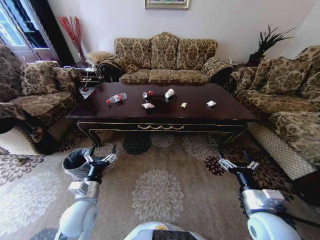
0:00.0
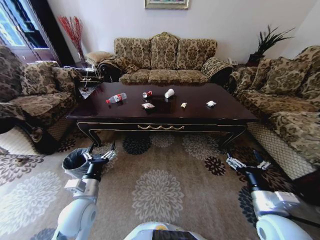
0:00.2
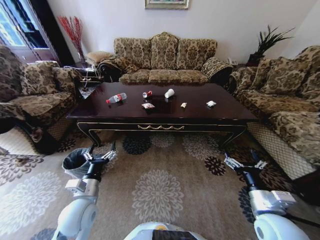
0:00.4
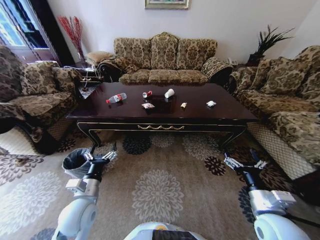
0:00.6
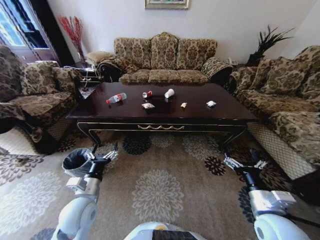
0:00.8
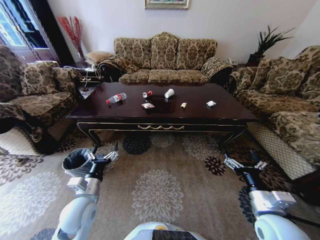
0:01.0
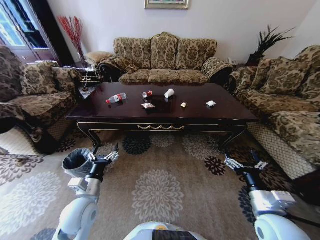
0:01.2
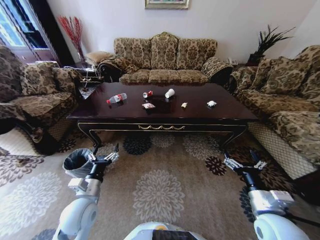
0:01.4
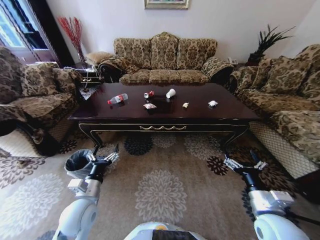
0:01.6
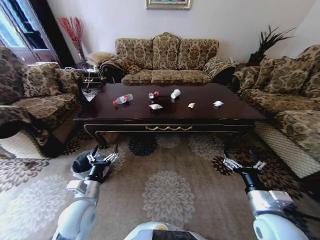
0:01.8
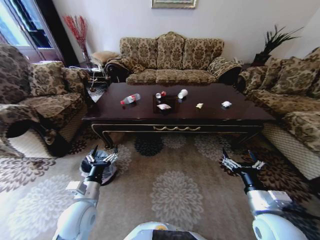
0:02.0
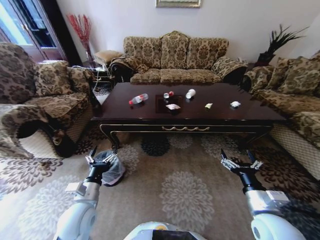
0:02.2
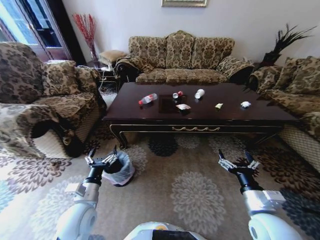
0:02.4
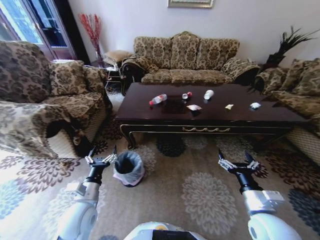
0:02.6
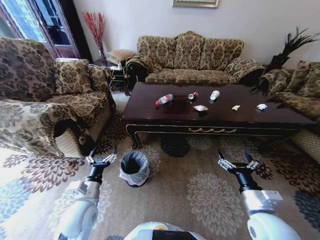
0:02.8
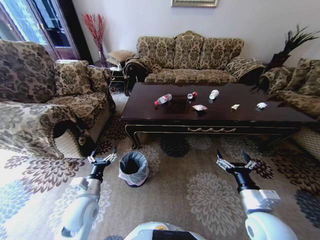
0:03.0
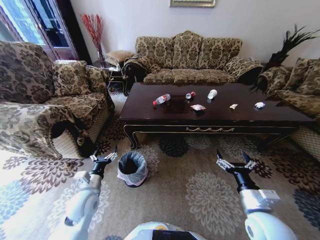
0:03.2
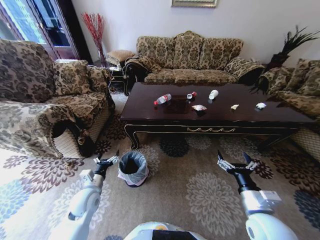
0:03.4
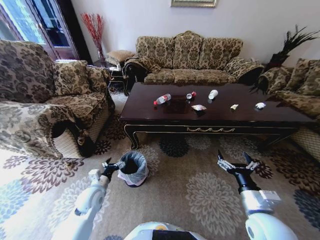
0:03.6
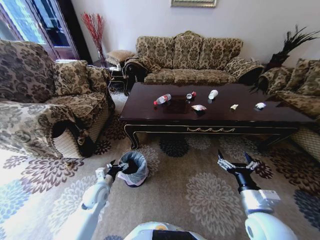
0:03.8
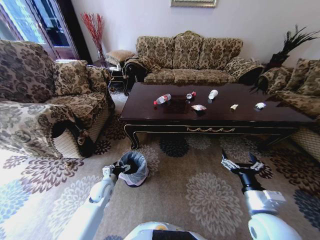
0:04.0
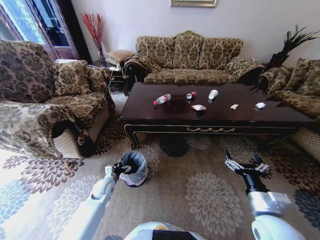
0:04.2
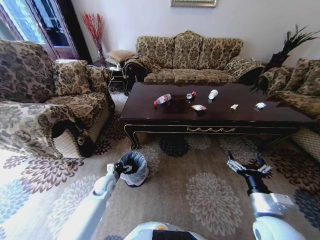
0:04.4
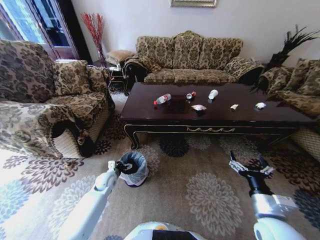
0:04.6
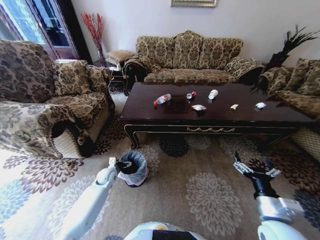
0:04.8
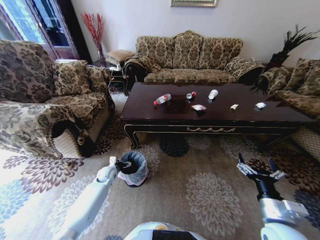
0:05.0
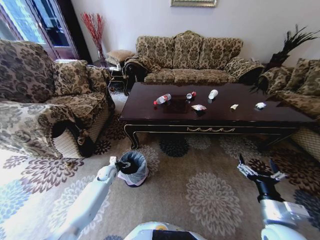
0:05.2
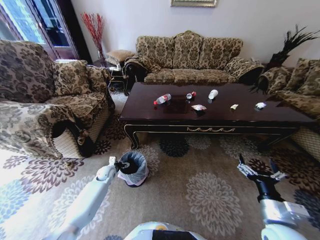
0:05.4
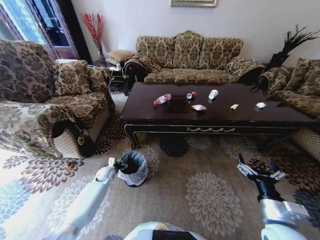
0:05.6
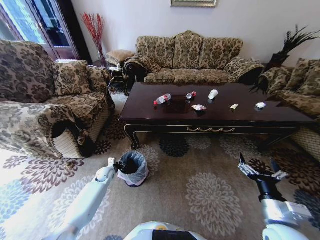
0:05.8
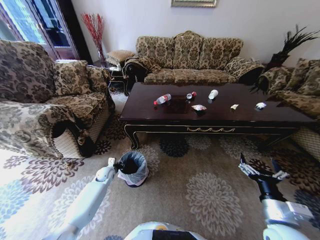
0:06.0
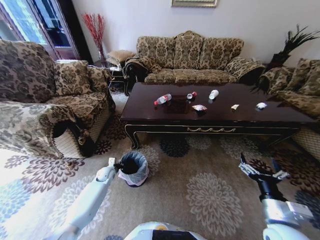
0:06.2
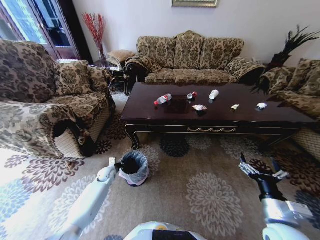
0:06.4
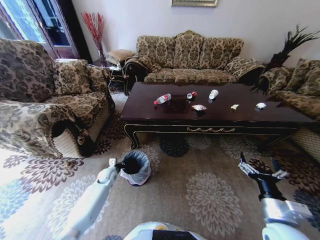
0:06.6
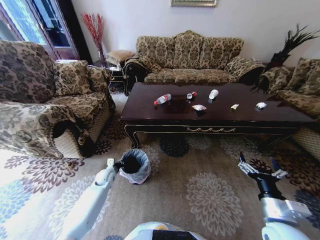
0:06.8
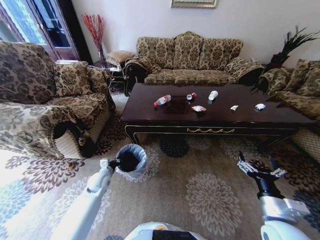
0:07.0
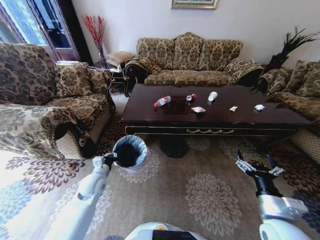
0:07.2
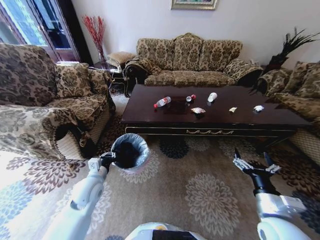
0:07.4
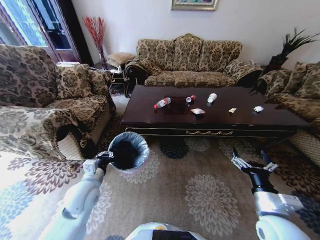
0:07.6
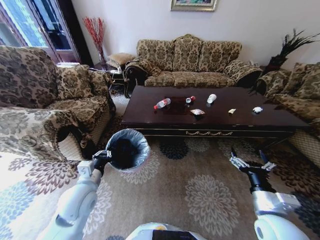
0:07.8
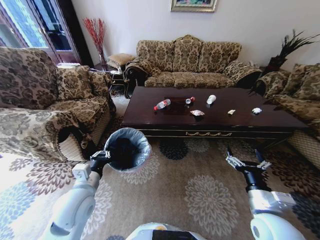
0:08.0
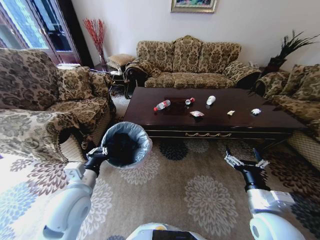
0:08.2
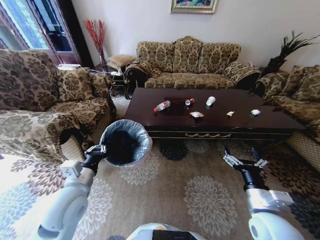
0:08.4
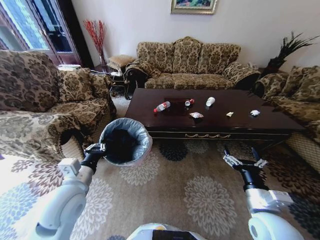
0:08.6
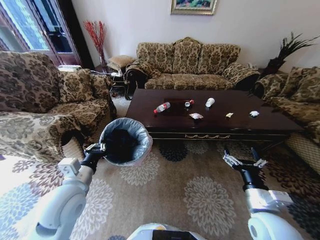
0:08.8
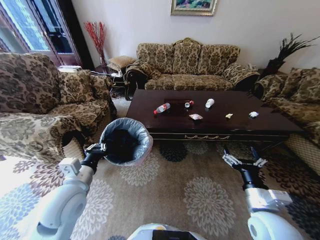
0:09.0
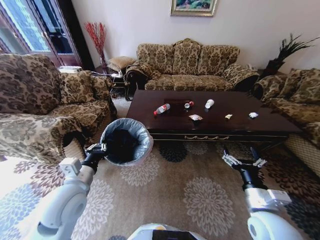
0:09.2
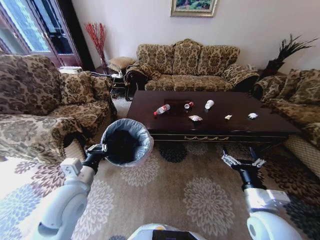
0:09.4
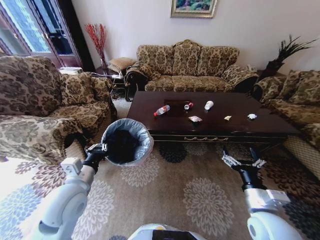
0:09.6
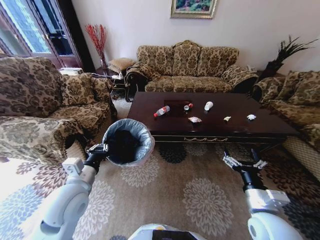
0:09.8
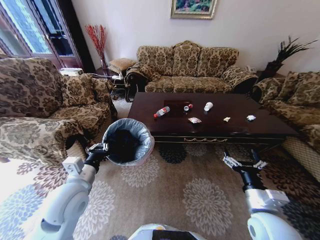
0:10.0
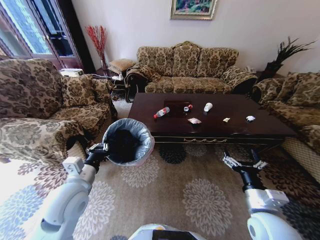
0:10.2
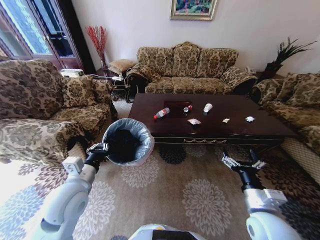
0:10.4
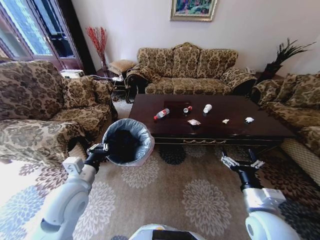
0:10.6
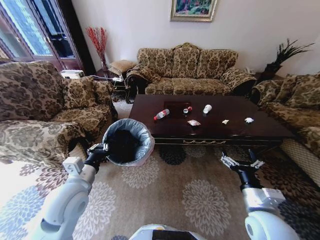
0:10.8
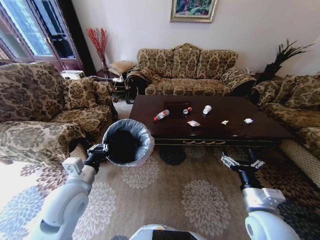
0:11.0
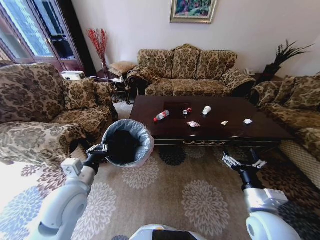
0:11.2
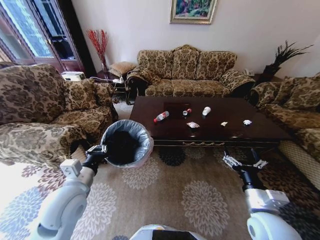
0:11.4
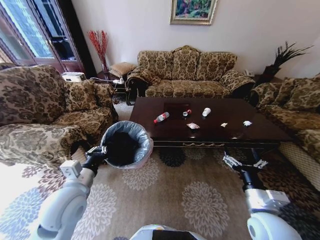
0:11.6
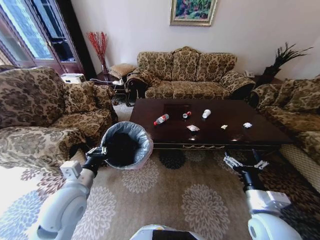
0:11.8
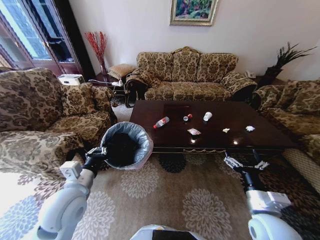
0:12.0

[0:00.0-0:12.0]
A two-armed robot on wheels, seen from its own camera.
Task of the whole recording: Move to the front of the table and place the trash on the table into the trash bin.
0:03.0 to 0:04.4: The left gripper travels forward and downward by some 20 cm.
0:04.4 to 0:06.0: The left gripper heads forward, covering roughly 5 cm, and closes its fingers.
0:06.0 to 0:07.6: The left gripper moves upward and backward, about 25 cm, and closes its fingers.
0:07.6 to 0:09.0: The left gripper moves upward, approximately 5 cm.

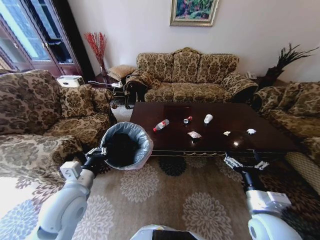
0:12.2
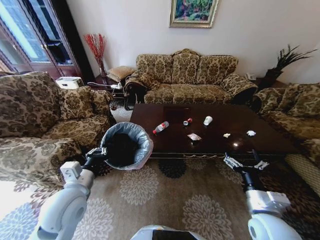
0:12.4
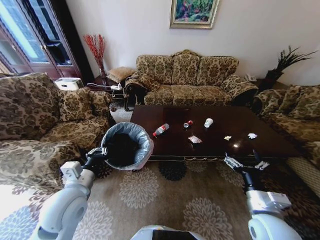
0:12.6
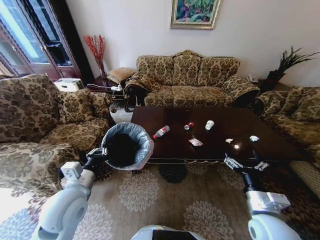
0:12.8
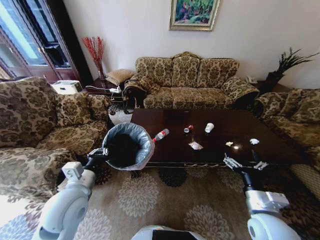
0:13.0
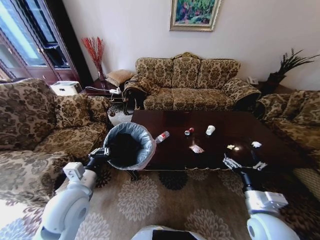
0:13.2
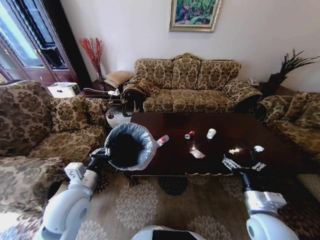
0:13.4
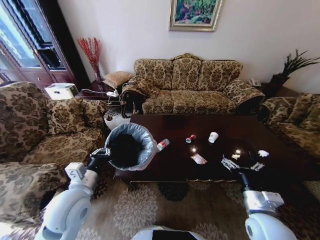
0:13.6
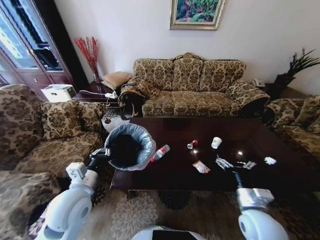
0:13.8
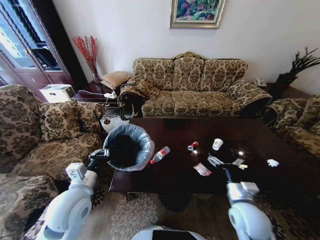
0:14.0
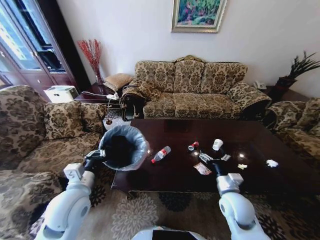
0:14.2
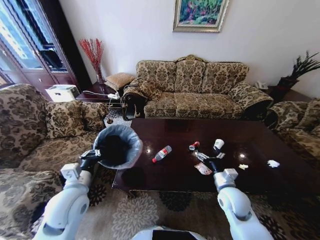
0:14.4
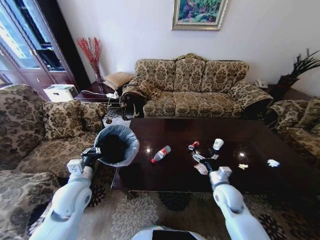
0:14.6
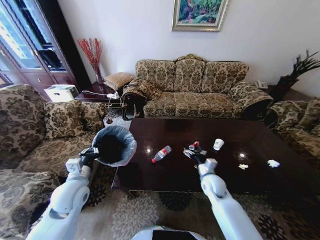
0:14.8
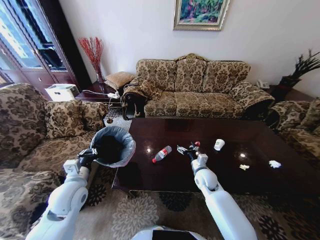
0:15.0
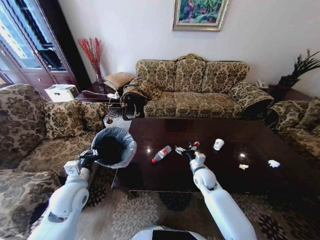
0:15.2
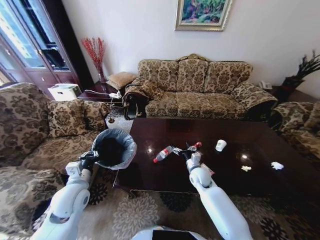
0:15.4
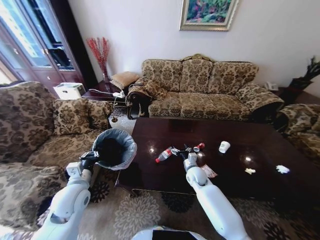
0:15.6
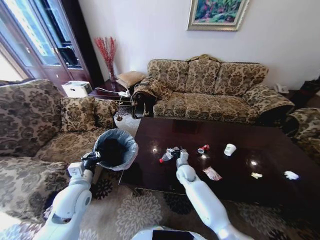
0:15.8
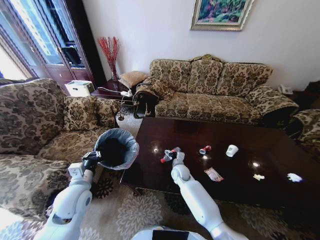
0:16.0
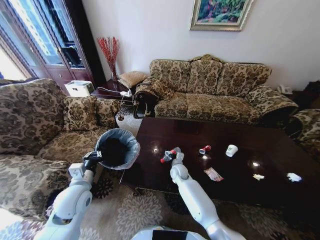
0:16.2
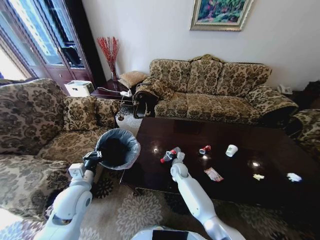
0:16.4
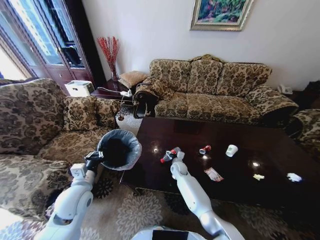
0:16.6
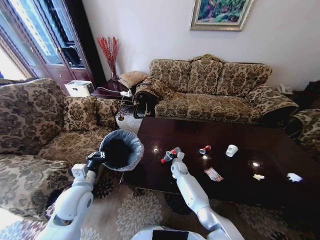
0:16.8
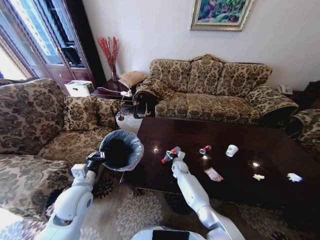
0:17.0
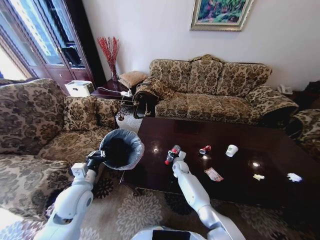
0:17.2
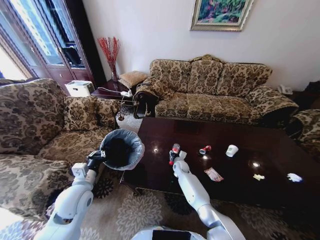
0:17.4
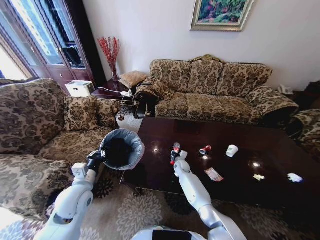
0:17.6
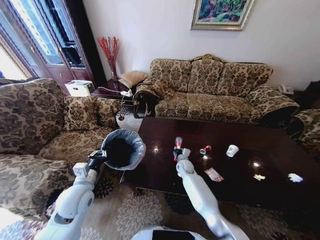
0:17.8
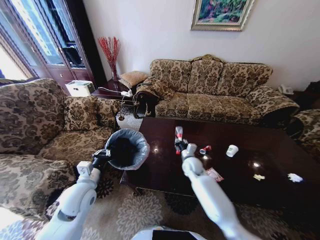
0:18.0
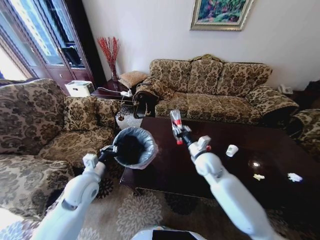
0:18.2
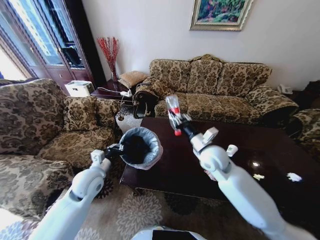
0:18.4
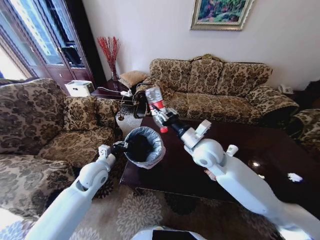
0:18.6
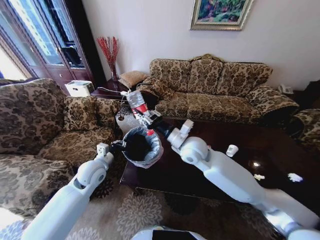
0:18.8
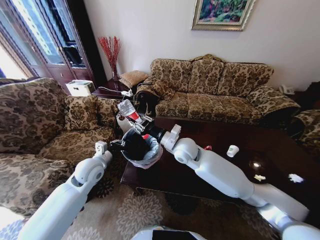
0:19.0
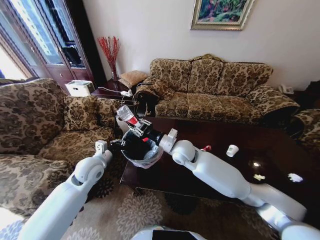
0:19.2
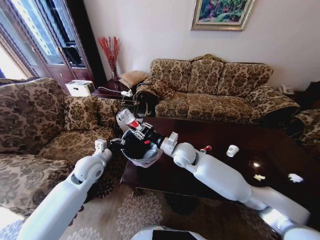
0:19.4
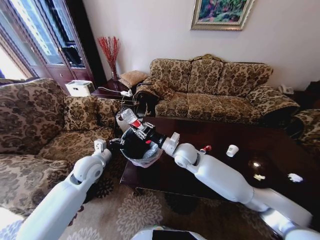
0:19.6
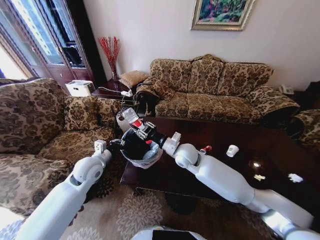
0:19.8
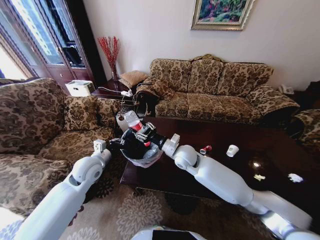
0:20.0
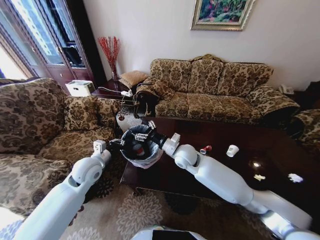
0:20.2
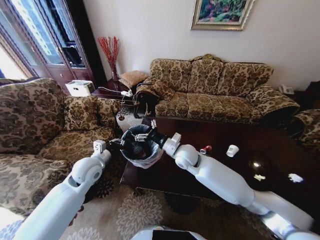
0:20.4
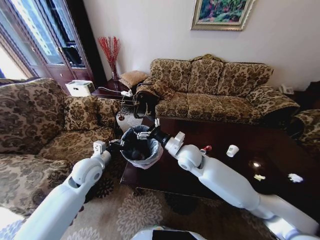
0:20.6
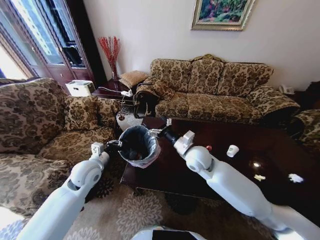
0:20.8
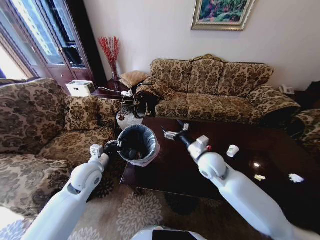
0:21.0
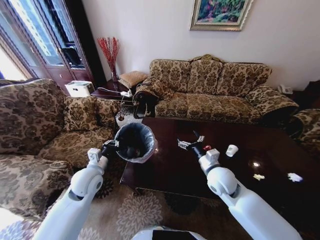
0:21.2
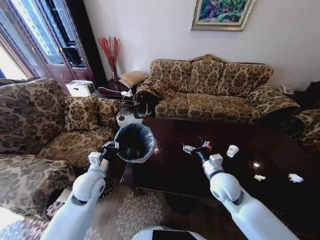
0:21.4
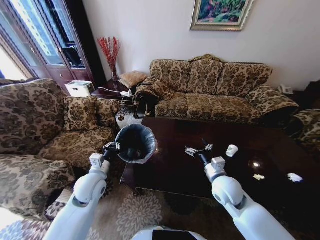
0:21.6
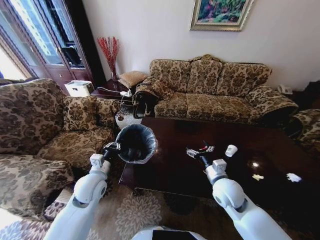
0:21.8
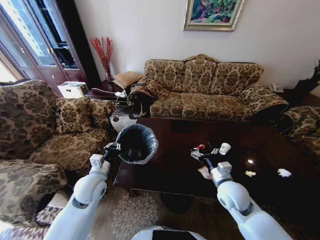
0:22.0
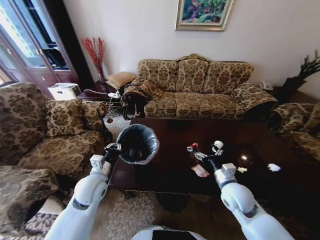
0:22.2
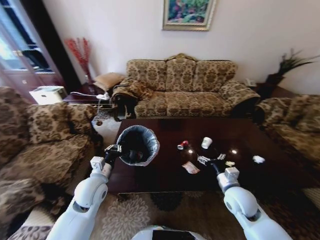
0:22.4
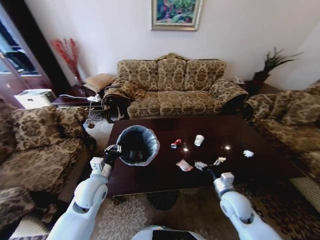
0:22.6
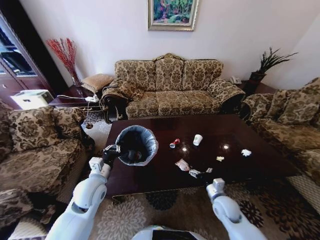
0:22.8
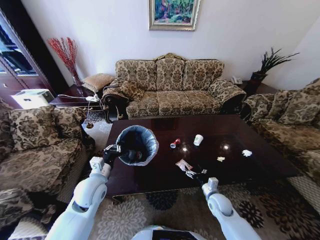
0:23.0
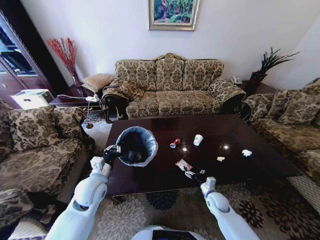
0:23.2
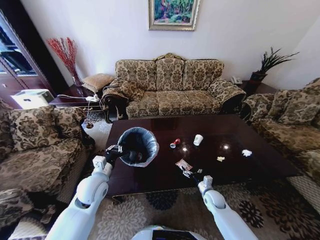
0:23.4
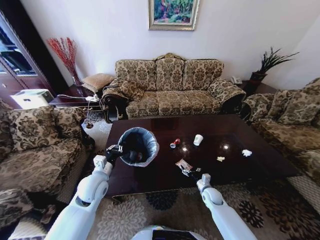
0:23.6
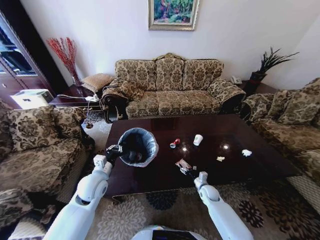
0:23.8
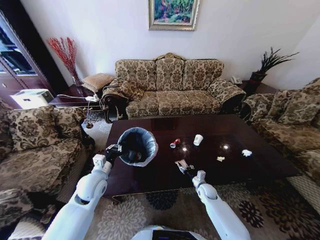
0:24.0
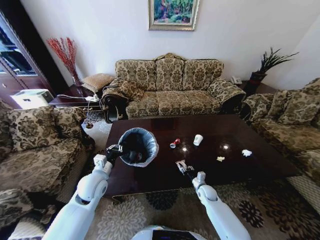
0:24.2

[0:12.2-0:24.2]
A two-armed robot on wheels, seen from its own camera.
Task of the whole recording: Move to the front of the table and place the trash on the table into the trash bin.
0:13.8 to 0:15.2: The left gripper heads to the left, covering approximately 5 cm, while the right gripper goes roughly 25 cm forward, downward and to the left.
0:15.2 to 0:16.6: The right gripper shifts approximately 15 cm to the left, forward and downward.
0:16.6 to 0:18.2: The right gripper goes about 20 cm upward and to the right, and closes its fingers.
0:18.2 to 0:19.8: The left gripper heads forward, covering about 5 cm. The right gripper shifts about 10 cm to the left, and reaches roughly 10 cm upward, then returns.
0:19.8 to 0:21.2: The right gripper travels to the right and backward by roughly 15 cm, and opens up.
0:21.2 to 0:22.6: The right gripper goes roughly 15 cm downward, to the right and backward.
0:22.6 to 0:24.2: The right gripper is displaced downward and forward by approximately 20 cm, and closes up.
